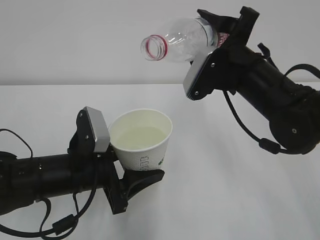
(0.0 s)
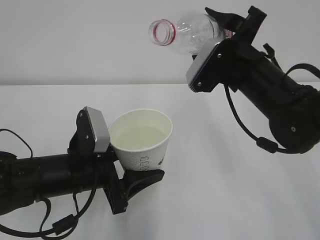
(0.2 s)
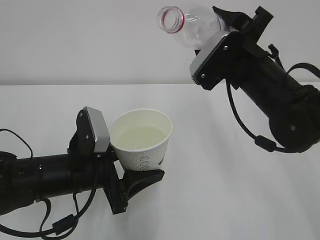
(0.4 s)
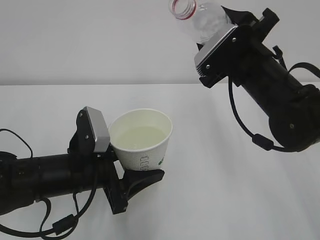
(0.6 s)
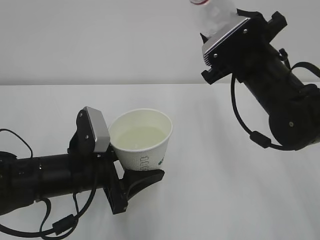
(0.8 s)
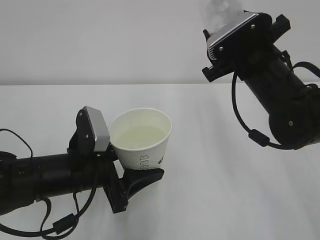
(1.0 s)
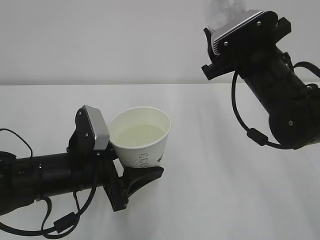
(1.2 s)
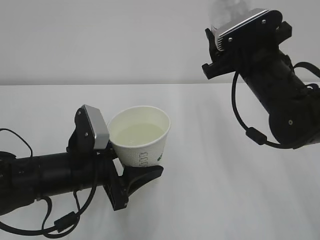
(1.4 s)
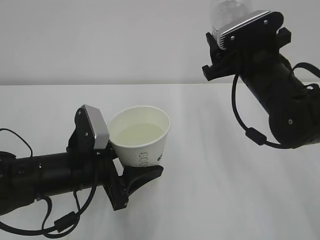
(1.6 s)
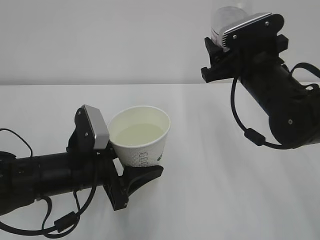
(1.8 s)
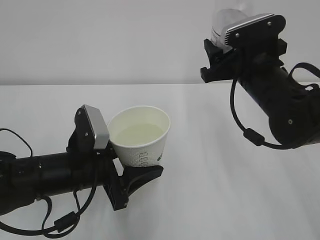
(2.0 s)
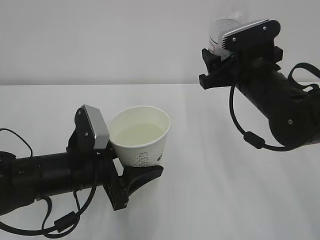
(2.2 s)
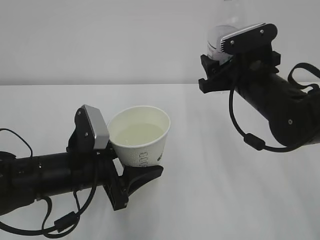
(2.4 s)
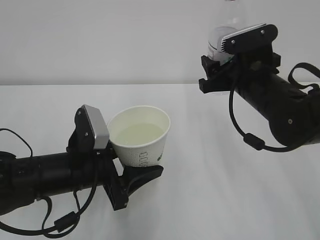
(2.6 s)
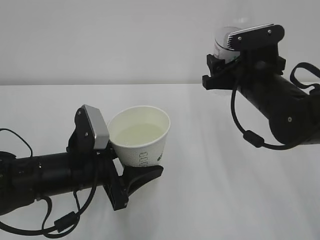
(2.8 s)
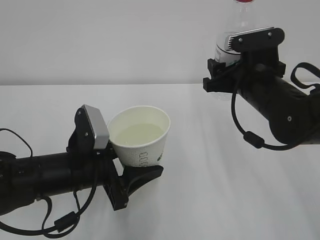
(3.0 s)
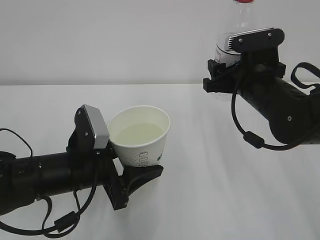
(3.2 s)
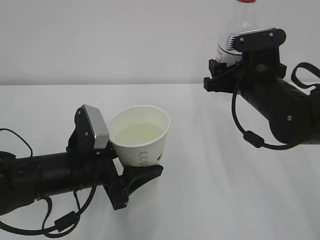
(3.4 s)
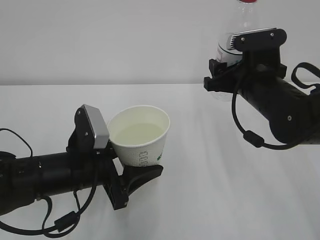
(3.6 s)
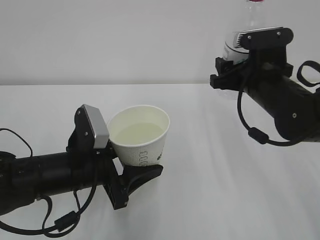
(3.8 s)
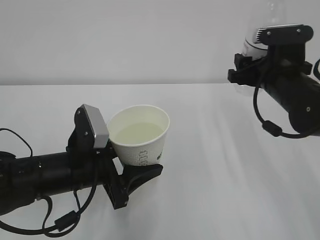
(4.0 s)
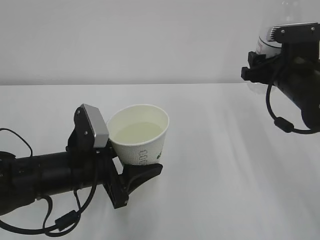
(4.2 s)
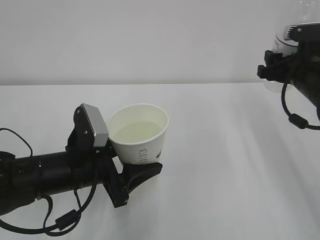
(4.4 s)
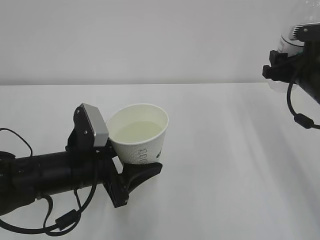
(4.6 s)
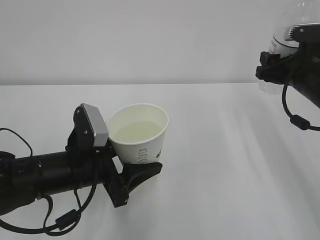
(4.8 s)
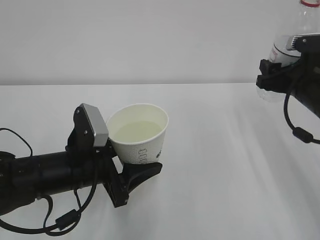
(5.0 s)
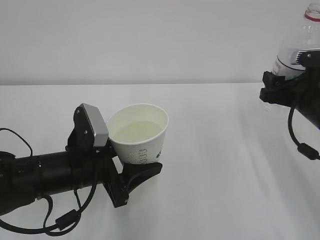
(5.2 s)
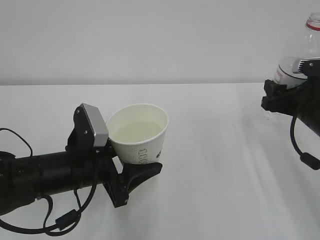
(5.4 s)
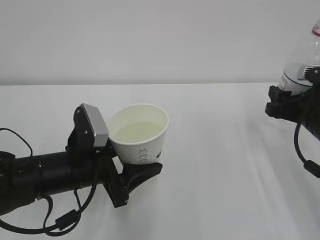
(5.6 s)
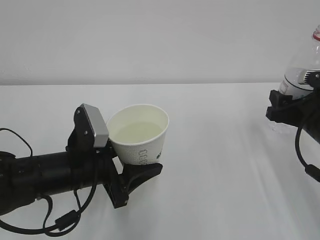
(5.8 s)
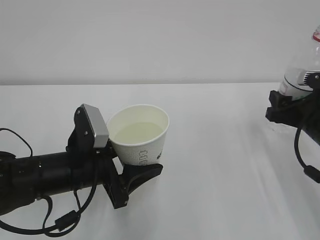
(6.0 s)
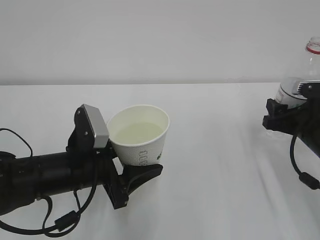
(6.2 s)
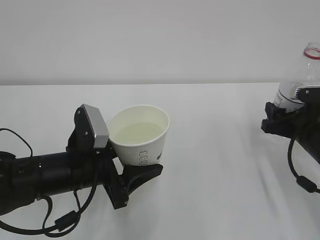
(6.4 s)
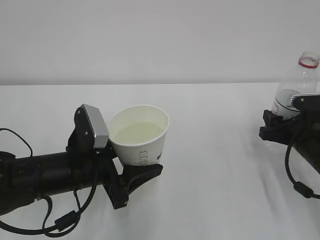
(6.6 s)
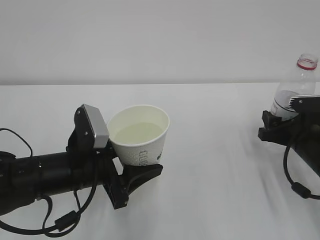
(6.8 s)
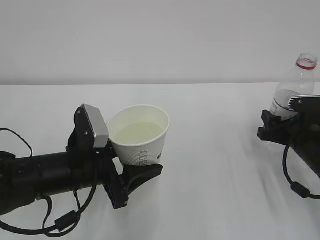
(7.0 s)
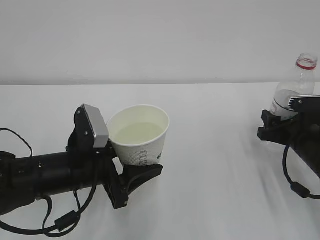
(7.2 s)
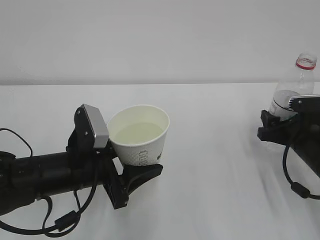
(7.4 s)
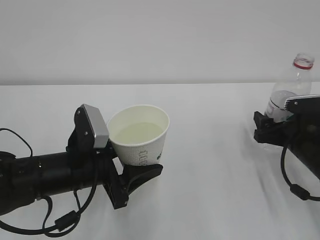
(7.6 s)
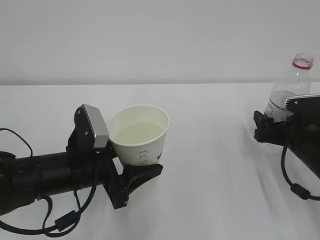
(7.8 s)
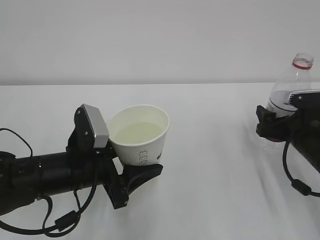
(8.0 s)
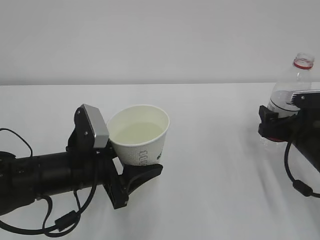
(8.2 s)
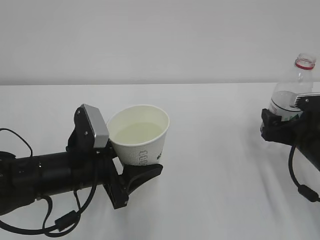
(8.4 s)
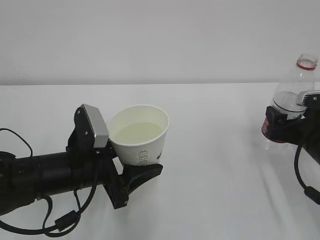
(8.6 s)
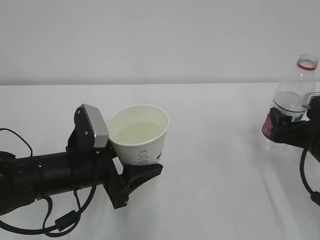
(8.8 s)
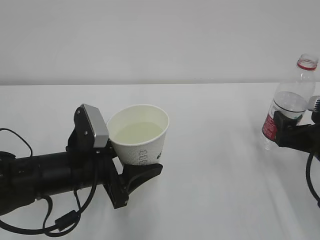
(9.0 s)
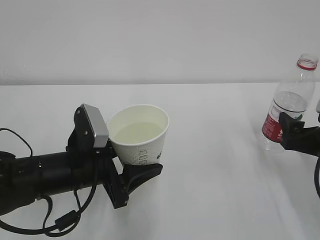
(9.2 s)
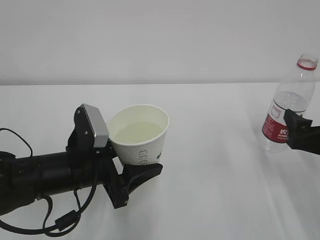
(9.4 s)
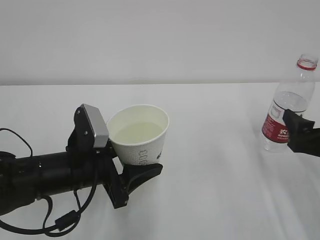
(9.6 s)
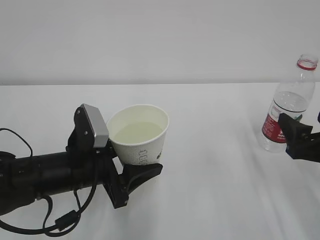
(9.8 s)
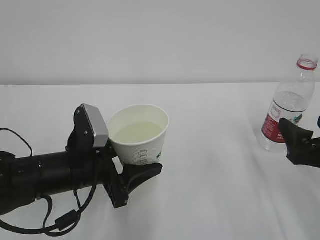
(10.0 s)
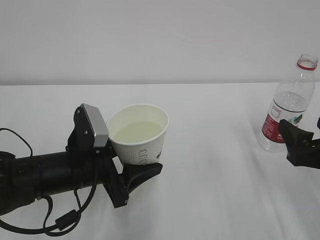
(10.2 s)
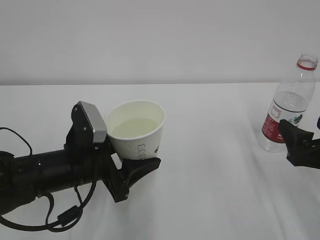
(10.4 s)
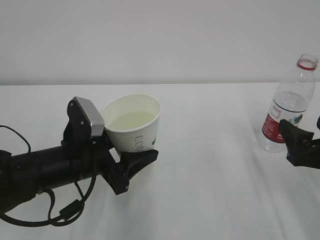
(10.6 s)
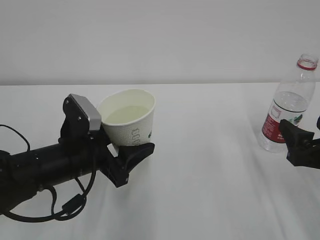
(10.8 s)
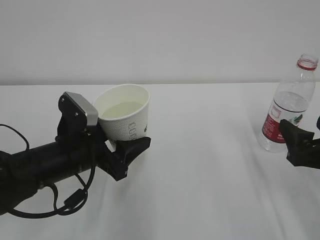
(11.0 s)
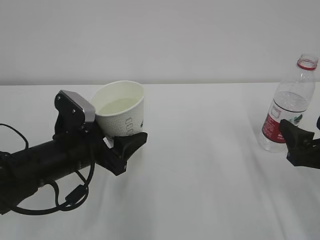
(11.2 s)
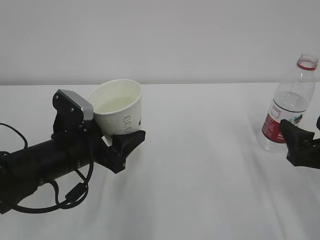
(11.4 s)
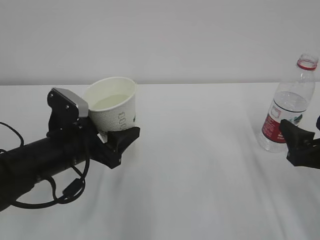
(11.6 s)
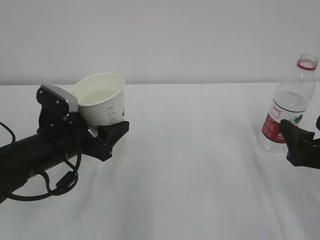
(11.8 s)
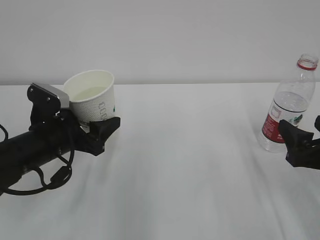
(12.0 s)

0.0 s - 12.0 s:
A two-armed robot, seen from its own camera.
3.0 s - 4.4 s: The right gripper travels to the right by some 10 cm.
4.4 s - 6.0 s: The right gripper is displaced backward and downward by approximately 10 cm.
6.0 s - 7.6 s: The right gripper heads downward, covering some 5 cm, and opens up.
7.6 s - 9.0 s: The right gripper shifts by about 5 cm.
9.0 s - 10.4 s: The right gripper moves backward, roughly 5 cm.
10.4 s - 12.0 s: The left gripper shifts roughly 5 cm to the left.

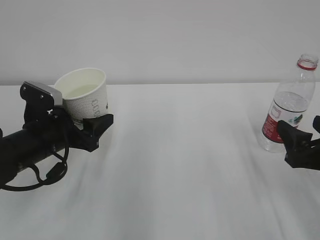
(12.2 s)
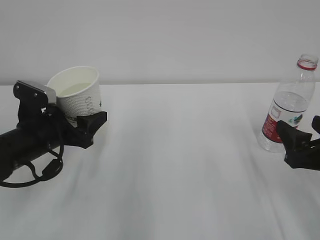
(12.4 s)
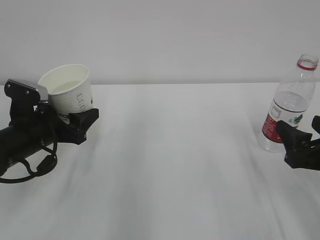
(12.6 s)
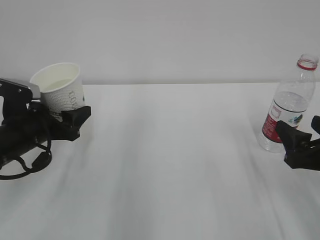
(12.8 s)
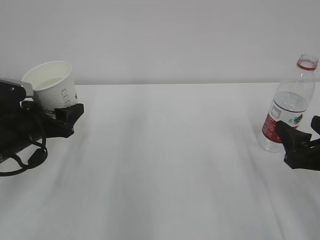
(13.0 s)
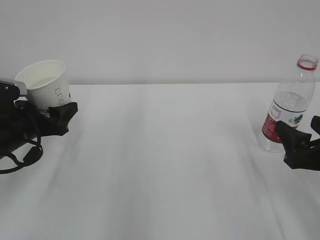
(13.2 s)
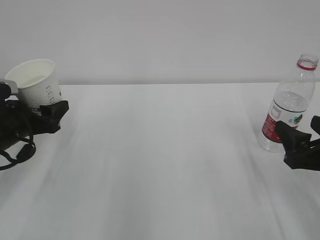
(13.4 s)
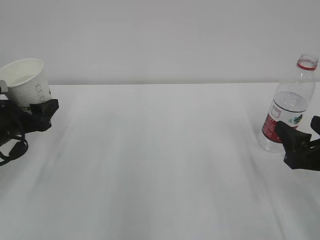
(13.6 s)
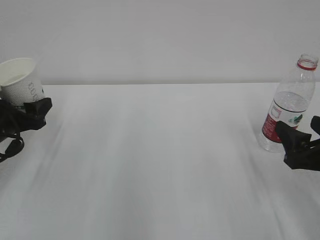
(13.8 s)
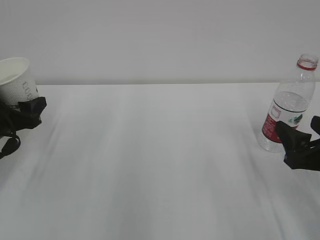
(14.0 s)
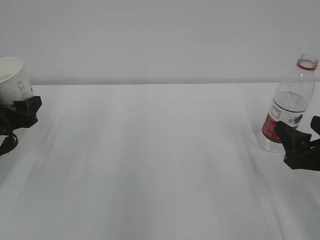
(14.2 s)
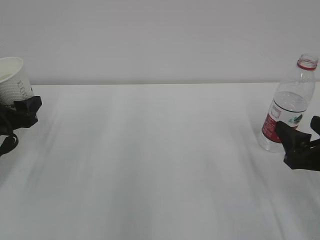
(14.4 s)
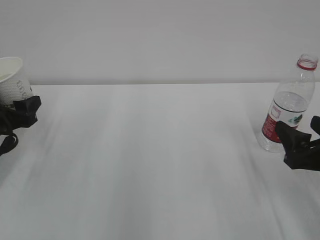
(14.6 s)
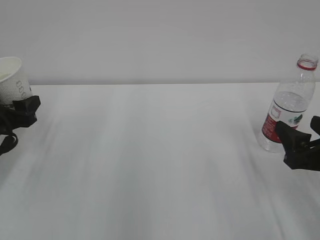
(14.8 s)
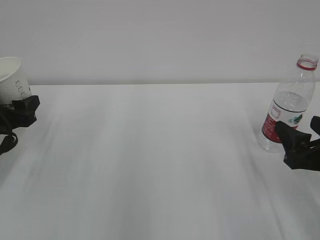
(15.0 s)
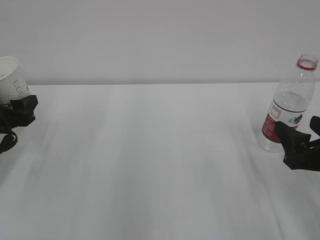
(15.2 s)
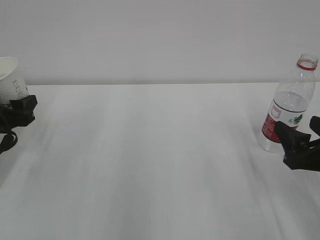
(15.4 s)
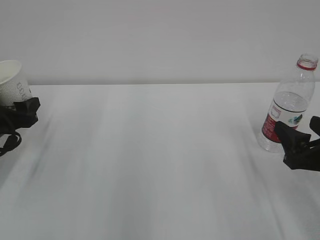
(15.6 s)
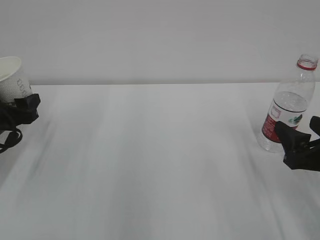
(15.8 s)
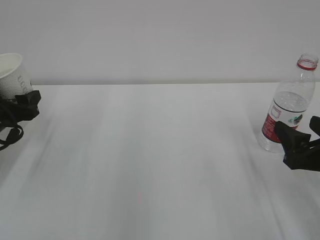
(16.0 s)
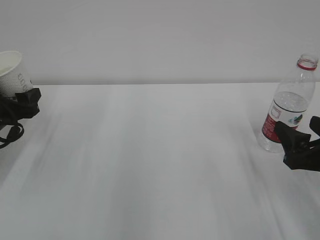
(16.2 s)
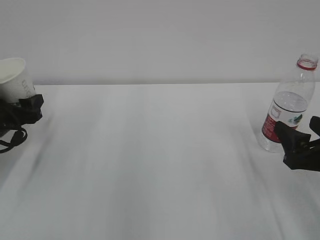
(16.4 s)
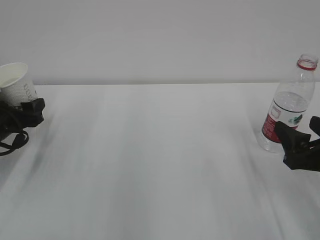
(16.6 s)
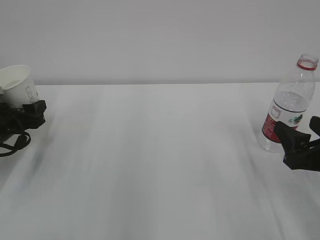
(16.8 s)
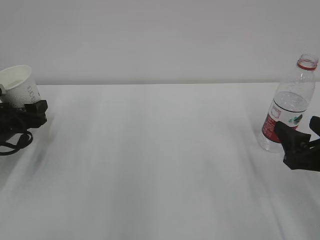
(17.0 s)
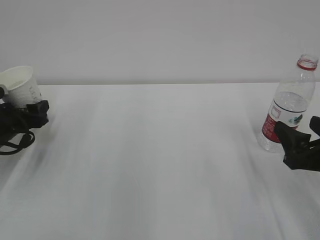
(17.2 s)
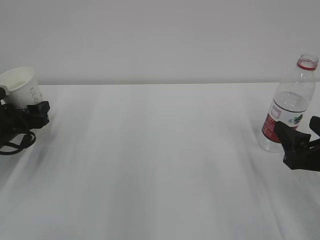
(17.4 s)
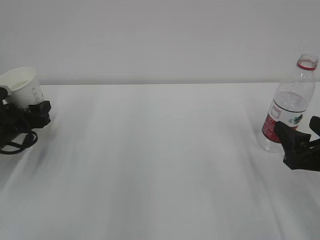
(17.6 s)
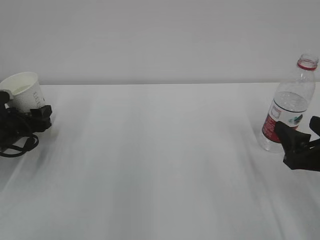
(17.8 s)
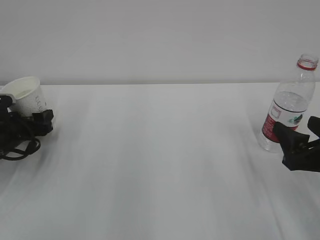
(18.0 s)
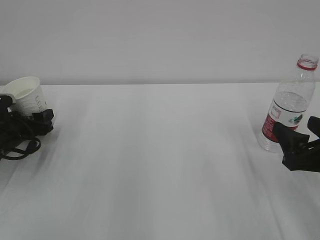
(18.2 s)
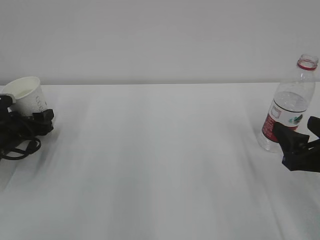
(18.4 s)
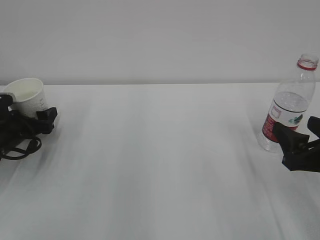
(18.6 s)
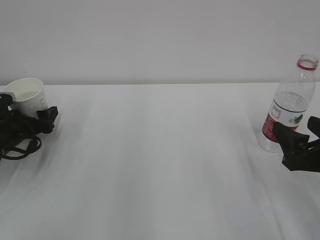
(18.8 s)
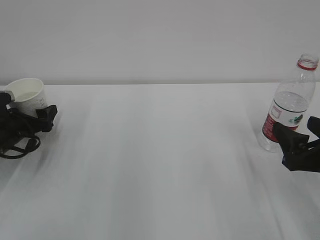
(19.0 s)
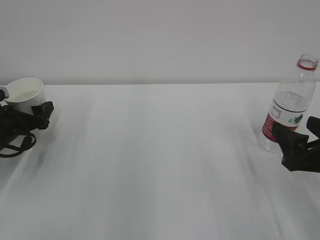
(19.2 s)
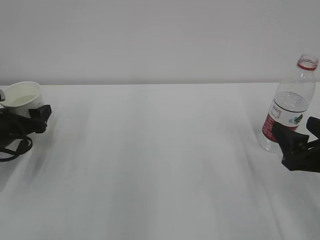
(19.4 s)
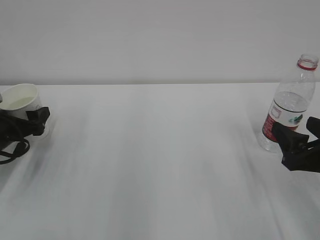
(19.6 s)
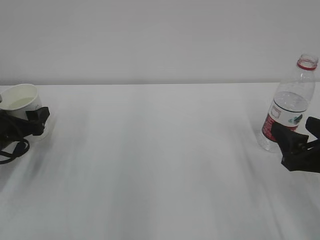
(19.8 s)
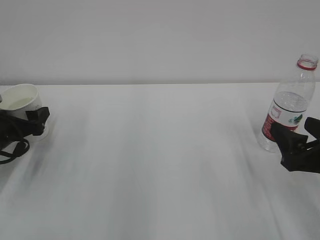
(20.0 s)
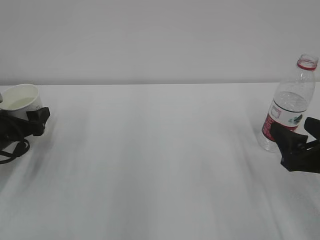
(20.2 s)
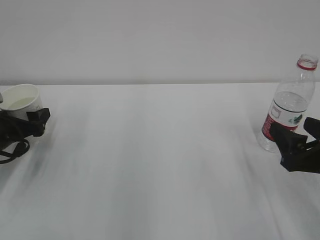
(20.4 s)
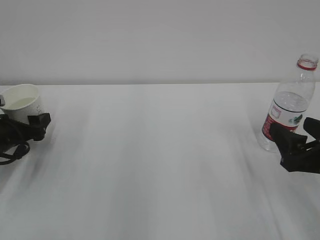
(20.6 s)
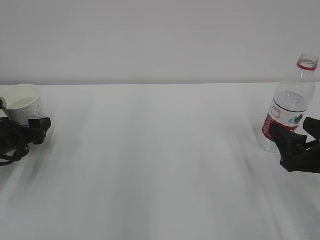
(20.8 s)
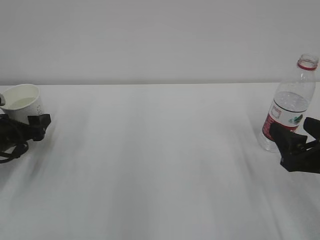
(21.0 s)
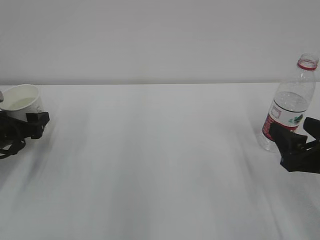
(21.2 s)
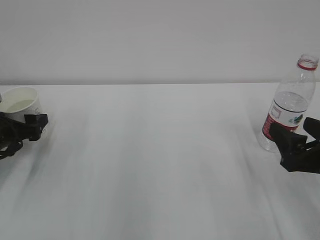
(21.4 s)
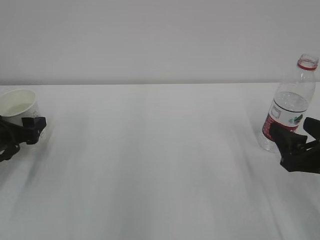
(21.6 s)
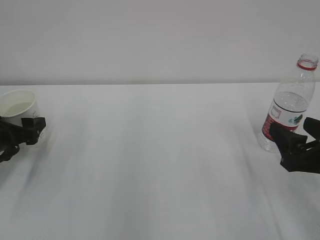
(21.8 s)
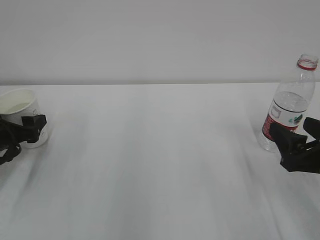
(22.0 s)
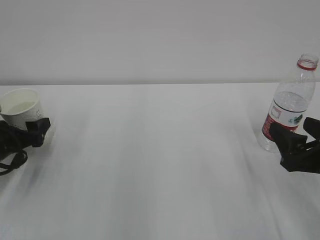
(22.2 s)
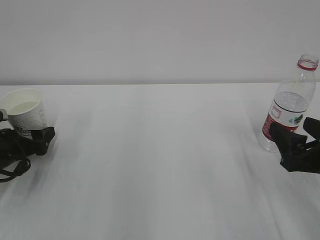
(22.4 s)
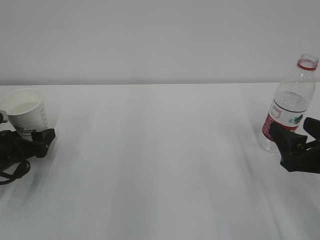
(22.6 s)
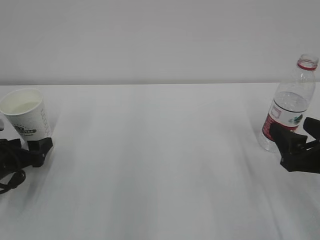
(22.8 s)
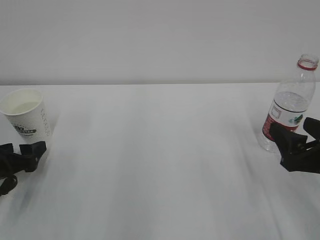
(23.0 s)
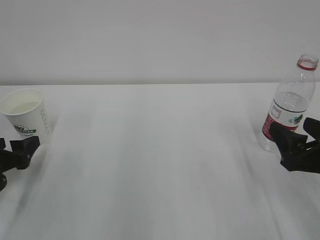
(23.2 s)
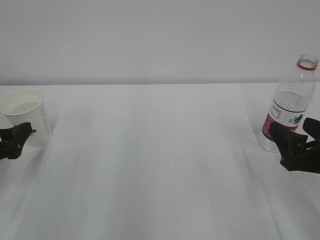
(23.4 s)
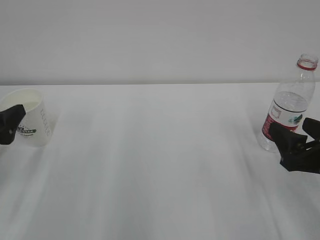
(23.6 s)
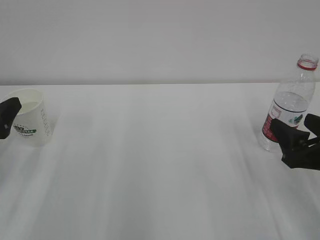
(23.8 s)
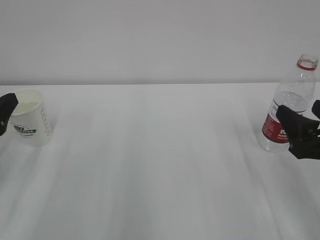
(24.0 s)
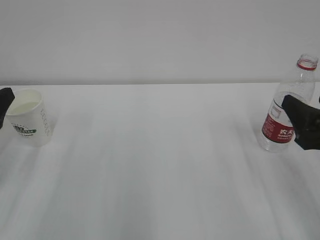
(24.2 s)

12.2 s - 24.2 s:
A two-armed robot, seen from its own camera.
12.2 s - 13.8 s: The left gripper goes approximately 10 cm to the left.
13.8 s - 16.6 s: The grippers make only small movements.
16.6 s - 18.2 s: The grippers stay close to where they were, moving slightly.
18.2 s - 19.8 s: The left gripper opens.
19.8 s - 22.6 s: The grippers move only a little.
22.6 s - 24.2 s: The left gripper is displaced upward and backward by some 15 cm.
